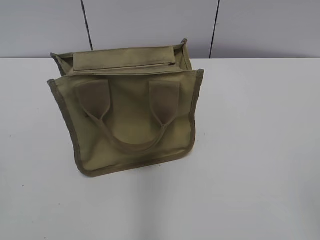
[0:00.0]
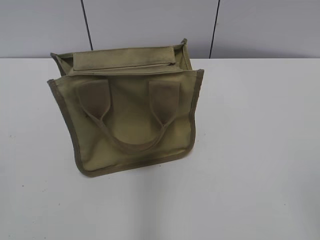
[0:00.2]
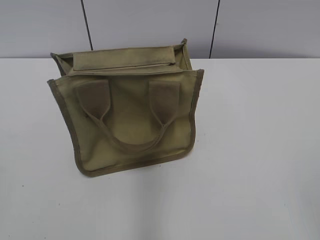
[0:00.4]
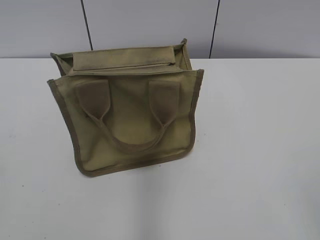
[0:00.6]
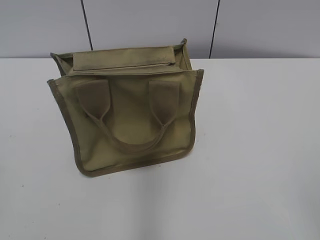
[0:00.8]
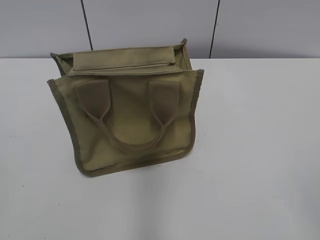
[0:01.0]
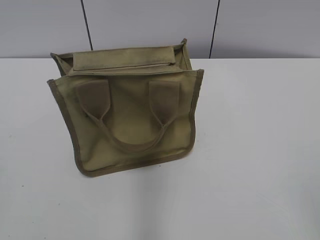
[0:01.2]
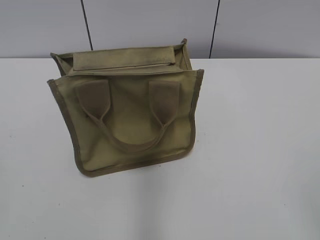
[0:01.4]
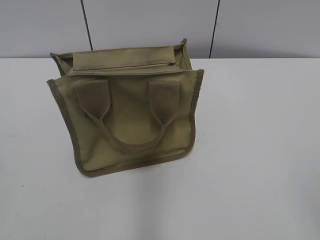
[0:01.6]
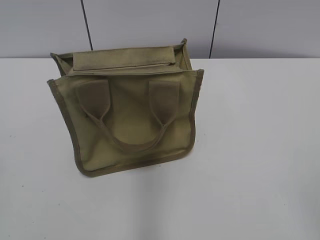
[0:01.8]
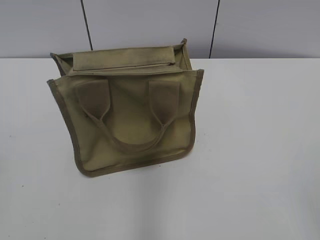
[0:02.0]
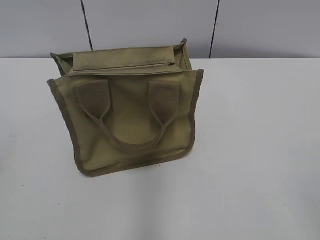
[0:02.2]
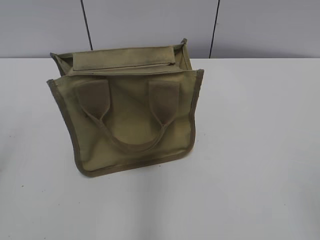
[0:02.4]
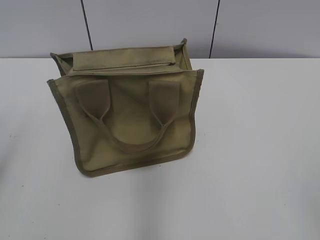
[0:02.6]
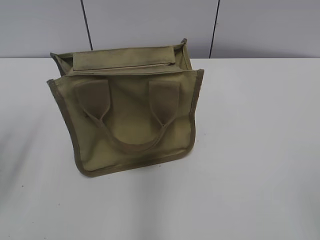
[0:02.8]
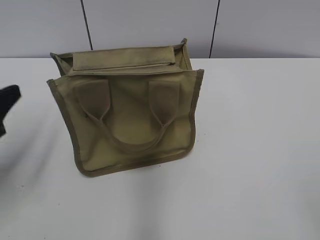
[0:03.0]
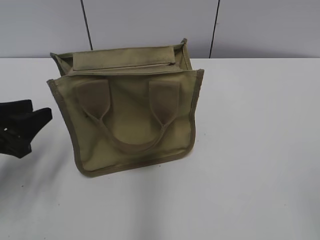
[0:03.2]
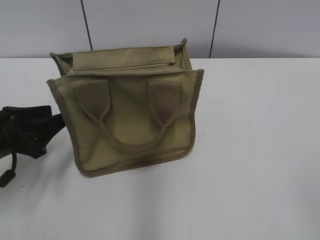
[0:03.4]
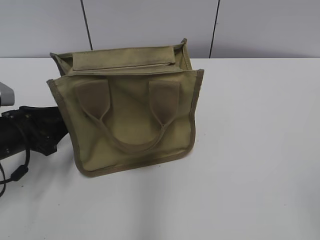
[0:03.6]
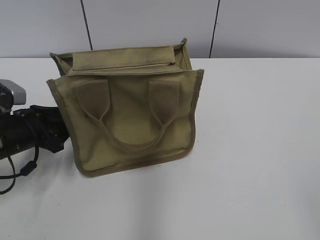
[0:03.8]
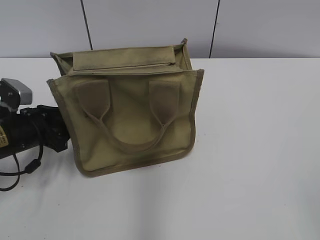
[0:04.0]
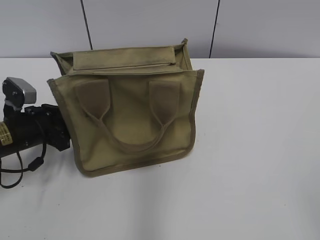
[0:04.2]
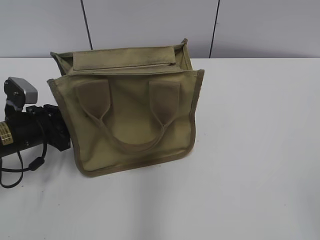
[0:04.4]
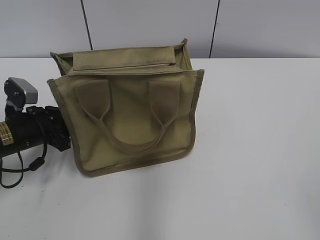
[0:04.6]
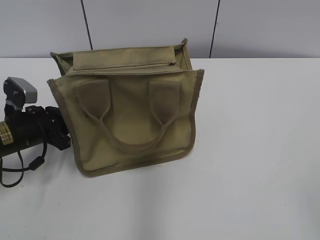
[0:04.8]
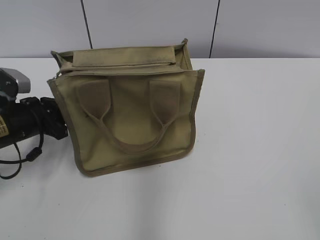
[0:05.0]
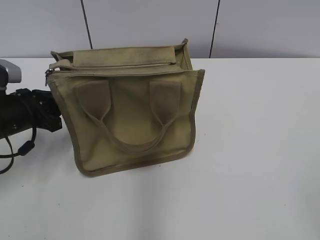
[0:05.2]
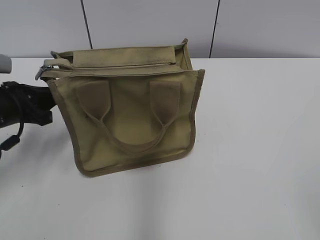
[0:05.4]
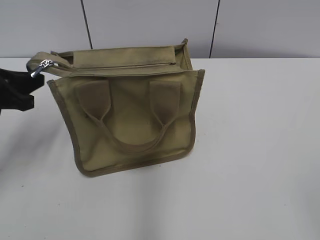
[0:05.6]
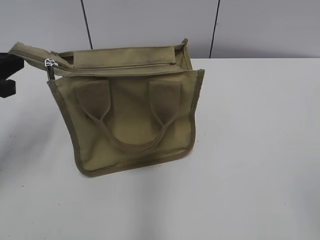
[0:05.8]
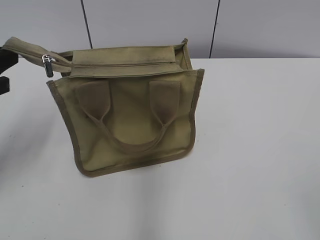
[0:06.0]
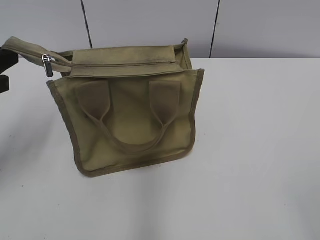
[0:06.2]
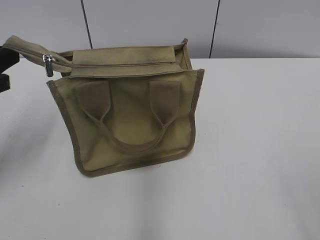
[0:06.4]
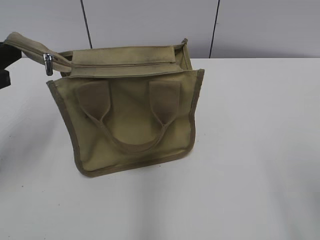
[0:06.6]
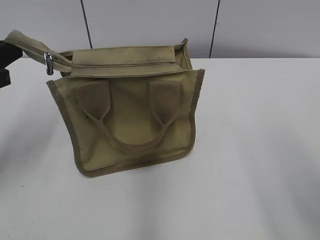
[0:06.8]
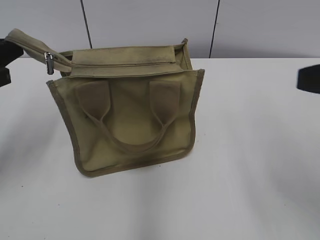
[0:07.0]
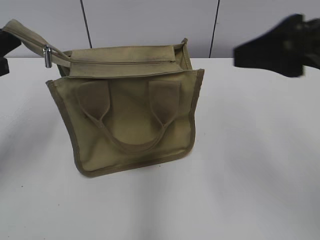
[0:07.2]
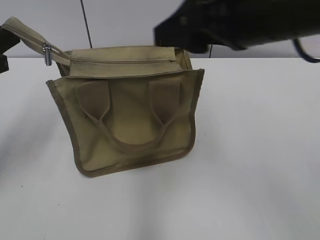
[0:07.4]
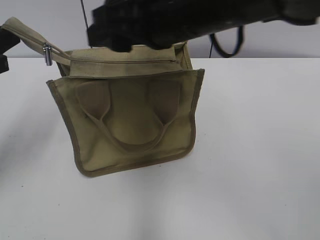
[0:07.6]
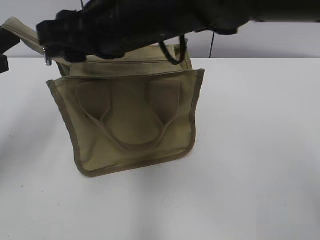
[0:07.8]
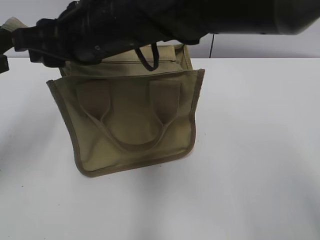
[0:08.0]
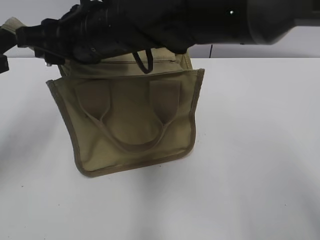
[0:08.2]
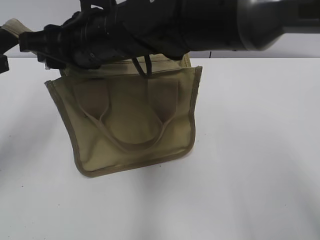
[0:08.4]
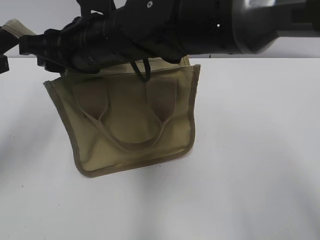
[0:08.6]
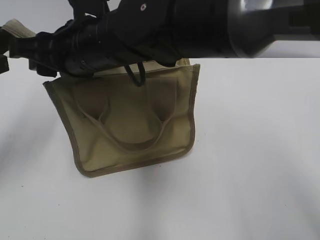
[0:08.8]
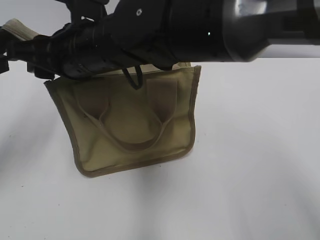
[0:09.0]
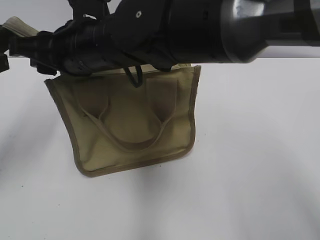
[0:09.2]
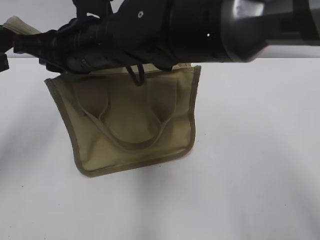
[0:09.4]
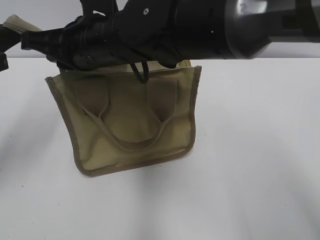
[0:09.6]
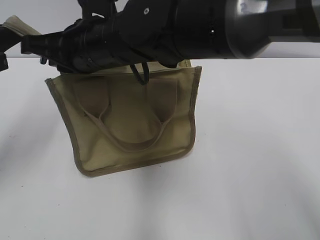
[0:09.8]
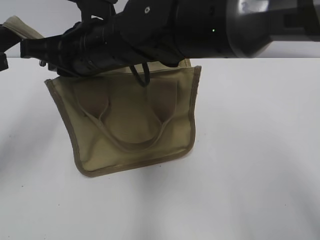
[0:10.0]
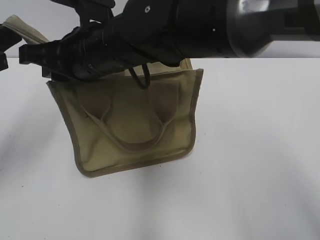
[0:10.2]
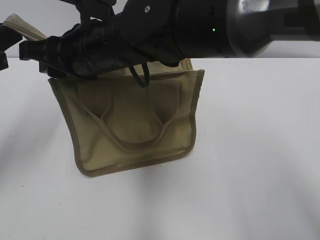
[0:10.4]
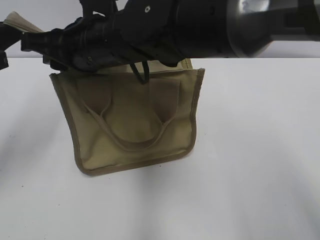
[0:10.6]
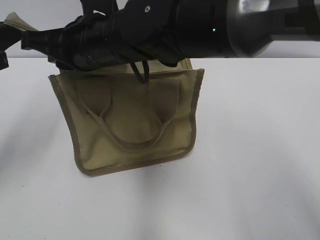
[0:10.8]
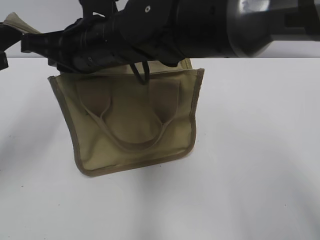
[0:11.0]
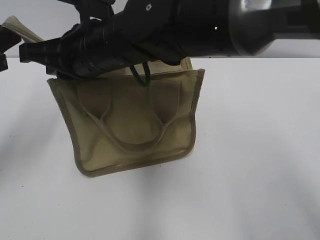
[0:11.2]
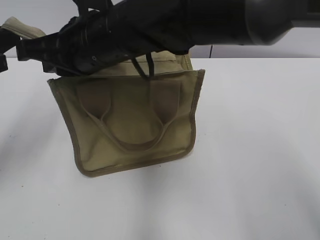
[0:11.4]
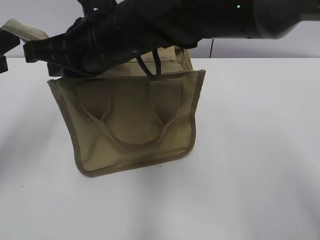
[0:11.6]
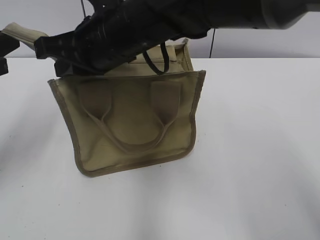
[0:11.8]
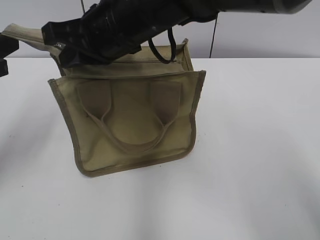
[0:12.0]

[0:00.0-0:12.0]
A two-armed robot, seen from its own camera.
0:01.6 to 0:03.0: The left gripper goes approximately 20 cm forward and downward.
0:03.0 to 0:04.4: The left gripper travels downward and forward by some 15 cm.
0:04.4 to 0:06.0: The left gripper is displaced upward by some 15 cm, and closes its fingers.
0:06.0 to 0:07.6: The right gripper moves forward and to the left, approximately 35 cm.
0:07.6 to 0:09.0: The right gripper heads to the left and downward, covering approximately 15 cm.
0:09.0 to 0:10.4: The right gripper closes and opens again.
0:10.4 to 0:12.0: The right gripper closes.

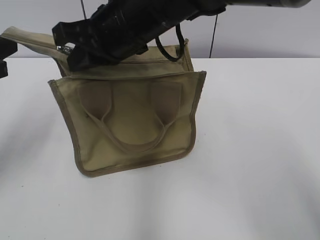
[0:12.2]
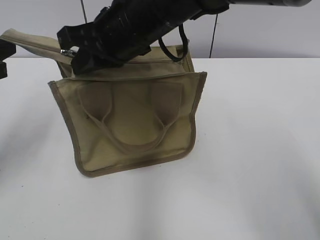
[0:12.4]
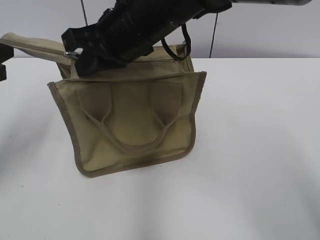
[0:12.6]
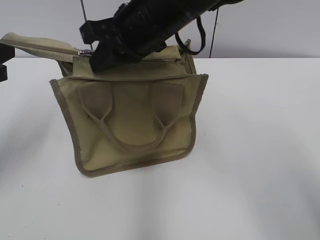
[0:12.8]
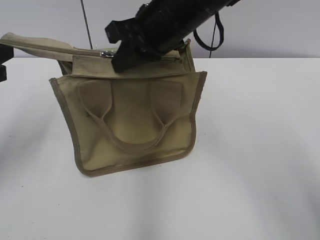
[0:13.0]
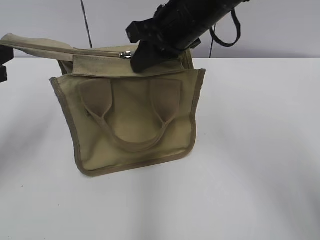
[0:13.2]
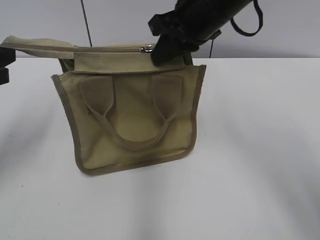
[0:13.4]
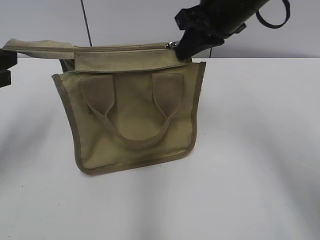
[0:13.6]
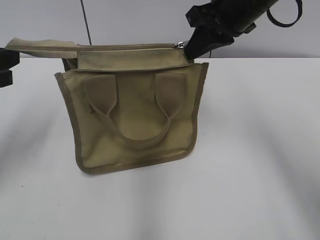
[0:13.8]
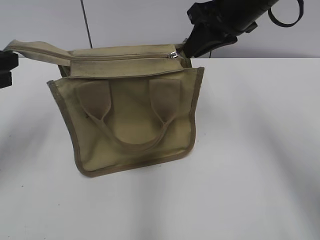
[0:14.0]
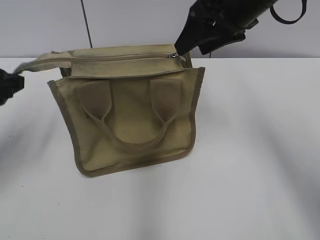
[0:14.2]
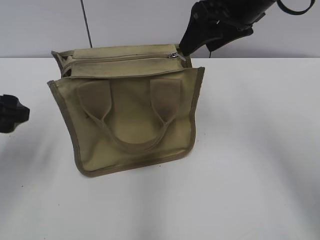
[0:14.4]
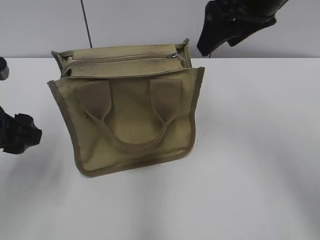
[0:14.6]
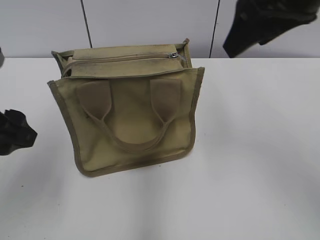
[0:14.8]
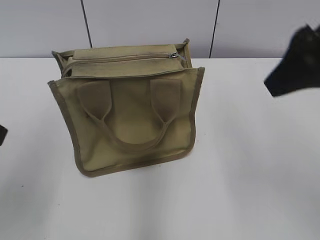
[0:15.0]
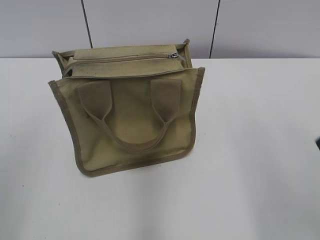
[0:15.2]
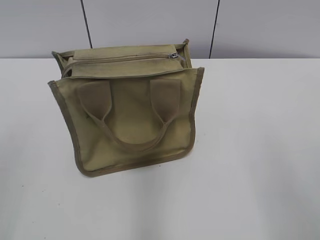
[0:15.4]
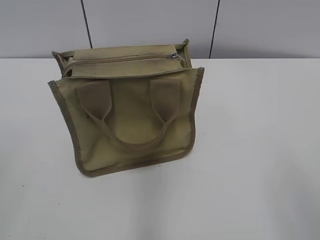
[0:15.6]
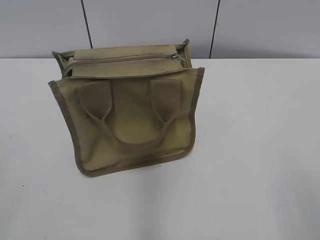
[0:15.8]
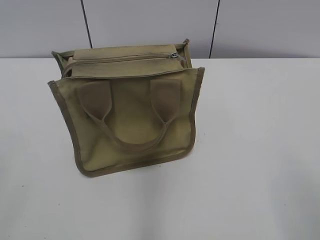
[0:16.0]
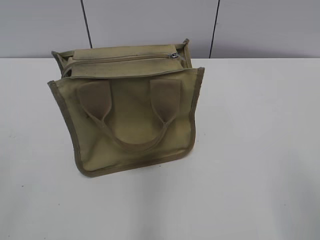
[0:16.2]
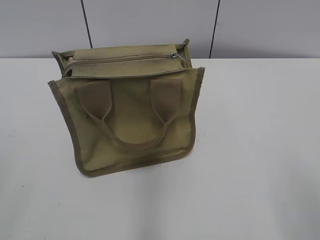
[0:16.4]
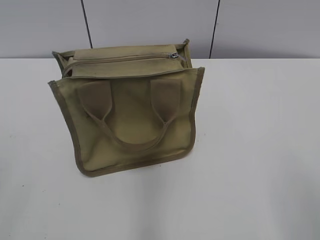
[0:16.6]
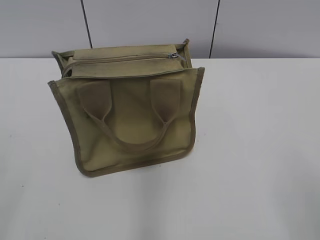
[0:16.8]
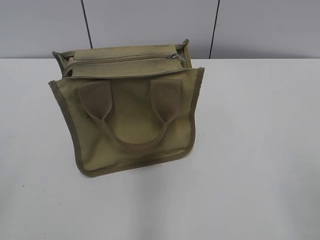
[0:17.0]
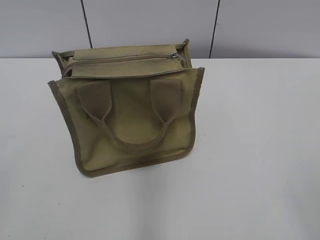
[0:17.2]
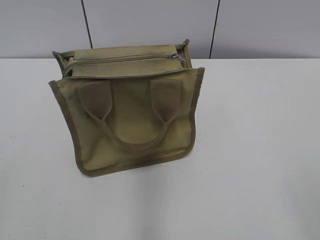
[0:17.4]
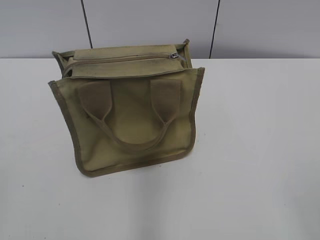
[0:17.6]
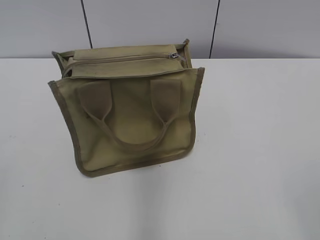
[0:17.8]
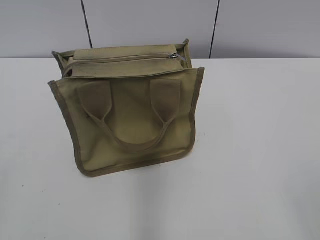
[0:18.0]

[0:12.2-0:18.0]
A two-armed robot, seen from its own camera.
Step, 0:14.0 to 0:14.2: Grab the zipper with your left hand.
0:12.2 to 0:13.6: The right gripper shifts about 15 cm to the right.
0:13.6 to 0:15.0: The left gripper heads backward and to the right, covering about 10 cm, and opens its fingers, while the right gripper travels backward, to the right and upward by roughly 15 cm, and opens up.
0:15.0 to 0:16.6: The right gripper goes roughly 25 cm backward, downward and to the right.

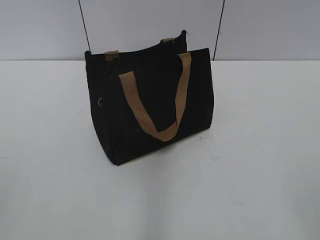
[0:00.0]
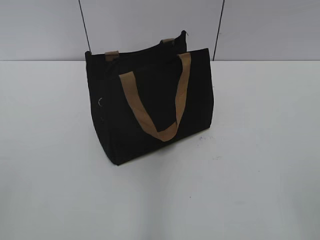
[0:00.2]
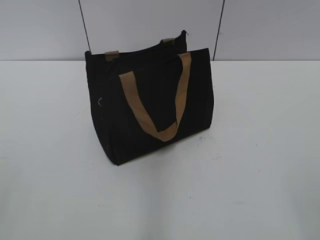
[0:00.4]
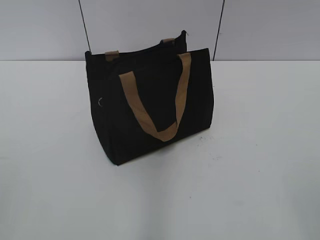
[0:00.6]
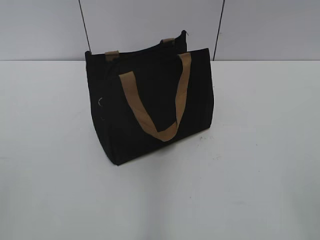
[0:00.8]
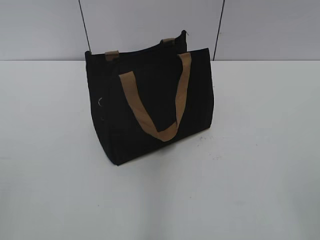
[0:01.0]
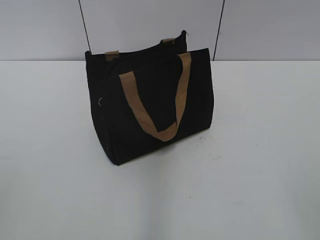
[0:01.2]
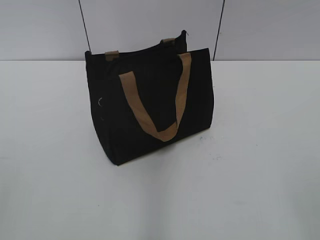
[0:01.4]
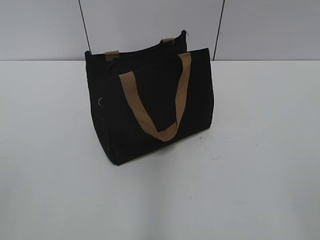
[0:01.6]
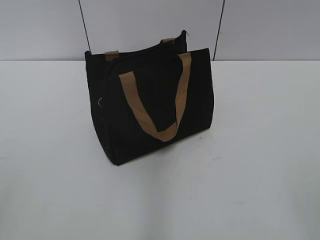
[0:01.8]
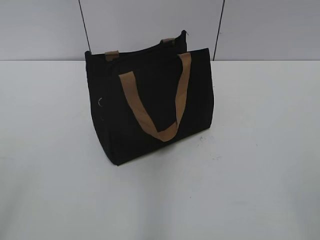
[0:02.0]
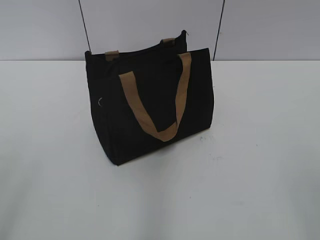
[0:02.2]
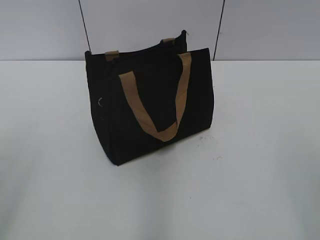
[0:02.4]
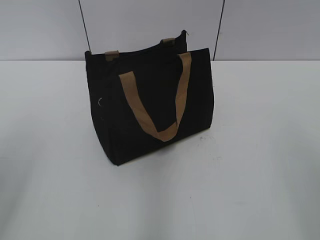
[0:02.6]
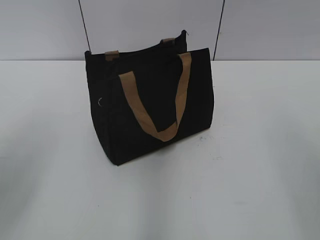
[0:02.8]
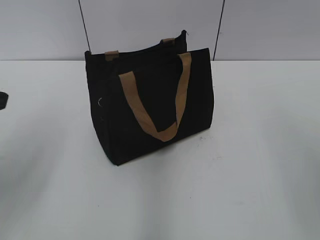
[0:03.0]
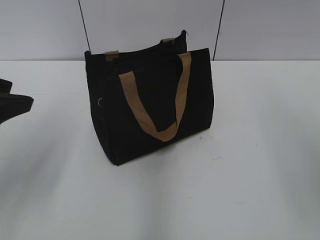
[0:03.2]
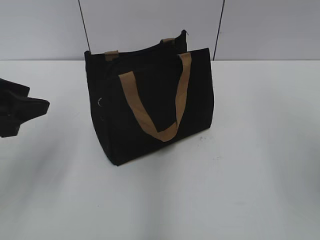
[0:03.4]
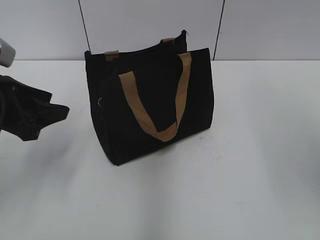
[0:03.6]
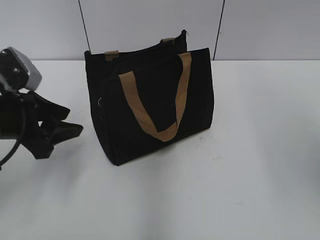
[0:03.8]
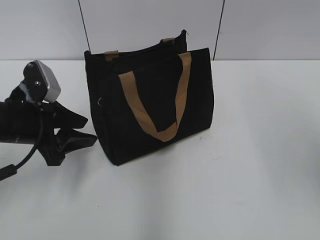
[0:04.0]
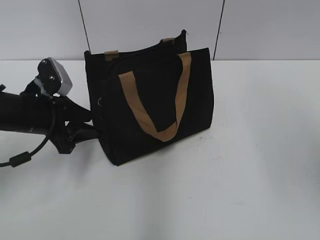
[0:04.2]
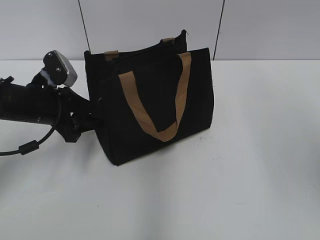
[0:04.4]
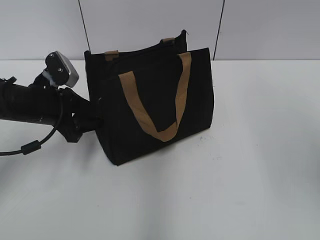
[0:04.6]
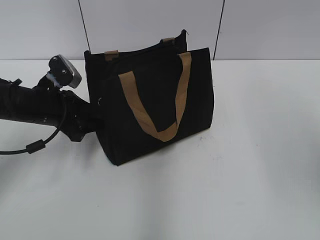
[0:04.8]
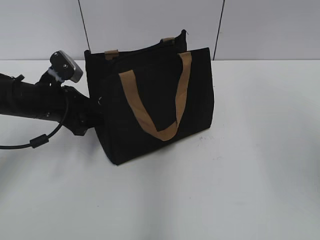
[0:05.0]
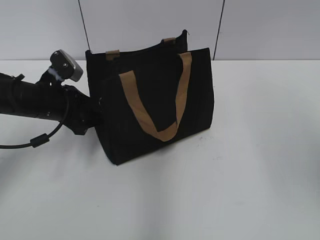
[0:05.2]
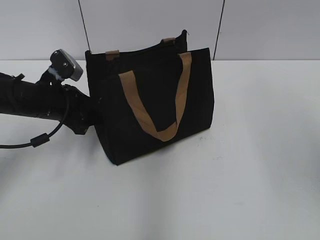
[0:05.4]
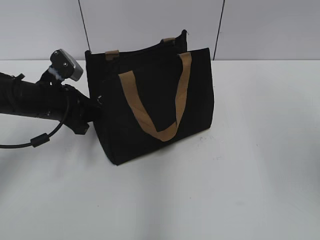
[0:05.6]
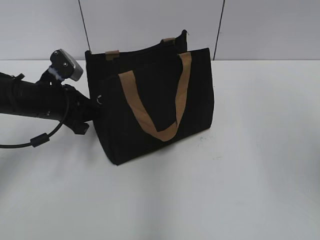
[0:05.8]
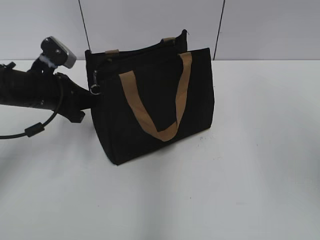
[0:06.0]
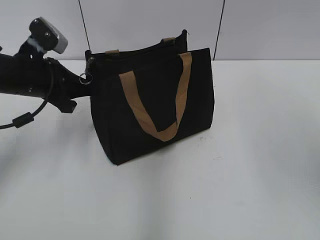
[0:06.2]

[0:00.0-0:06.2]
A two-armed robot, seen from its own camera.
0:01.6 to 0:03.2: The left gripper moves forward, approximately 20 cm.
0:03.2 to 0:04.6: The left gripper moves forward and downward, roughly 20 cm. Meanwhile the right gripper travels forward by about 5 cm.
0:04.6 to 0:06.2: The left gripper closes.
